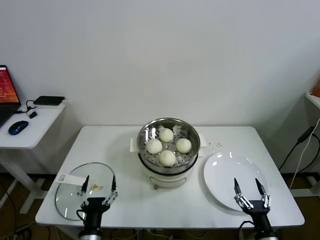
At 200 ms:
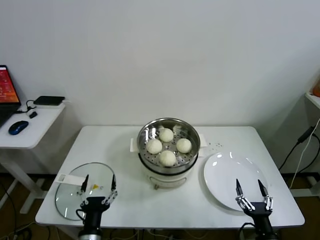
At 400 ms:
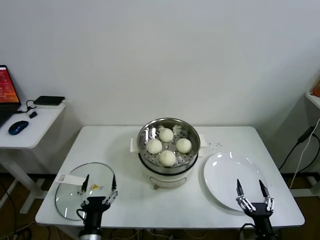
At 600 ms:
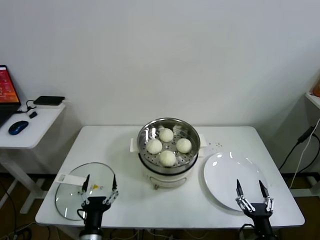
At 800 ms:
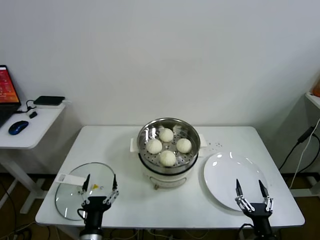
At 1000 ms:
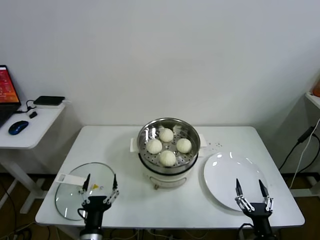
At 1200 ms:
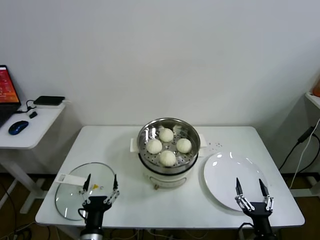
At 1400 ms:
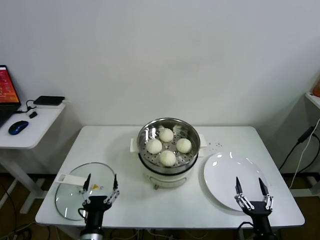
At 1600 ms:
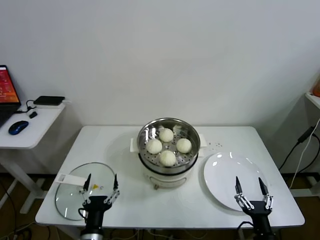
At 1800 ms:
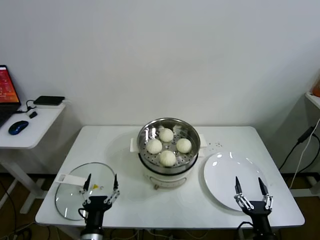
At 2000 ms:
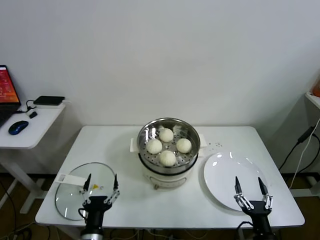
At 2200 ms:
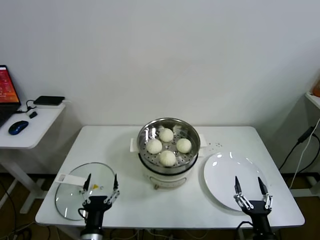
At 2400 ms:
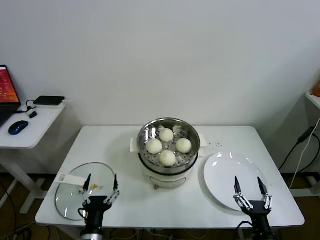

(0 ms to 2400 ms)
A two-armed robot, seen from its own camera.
Task of the whole recording: take steamed baozi put them in steamer.
0 ms - 1200 ms: The grippers stay close to where they were, moving slightly.
1200 ms - 2400 ms: The two grippers keep their place.

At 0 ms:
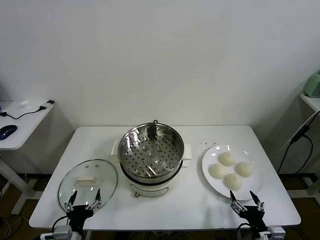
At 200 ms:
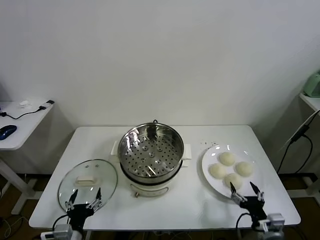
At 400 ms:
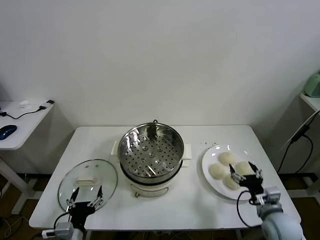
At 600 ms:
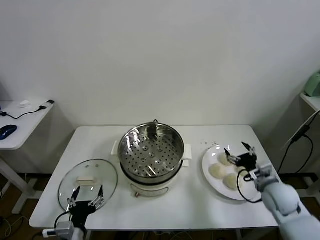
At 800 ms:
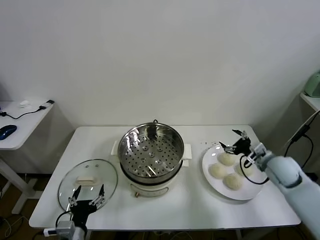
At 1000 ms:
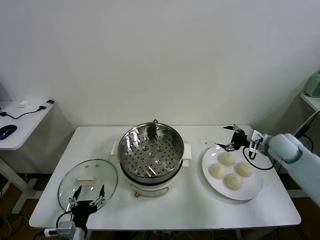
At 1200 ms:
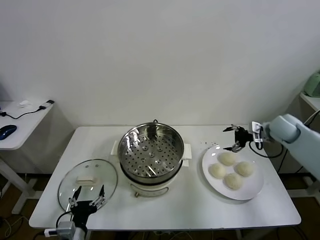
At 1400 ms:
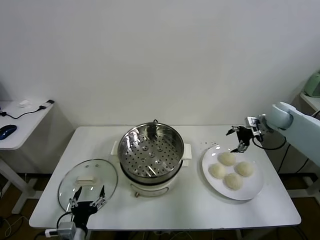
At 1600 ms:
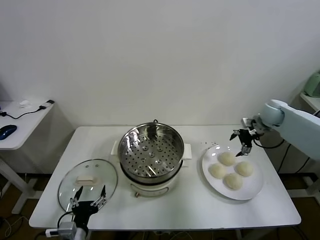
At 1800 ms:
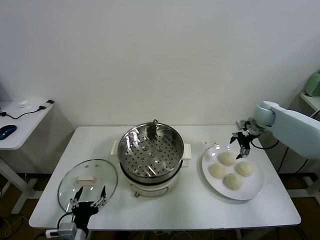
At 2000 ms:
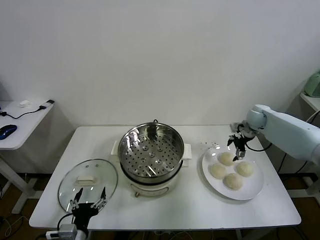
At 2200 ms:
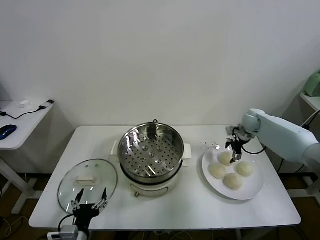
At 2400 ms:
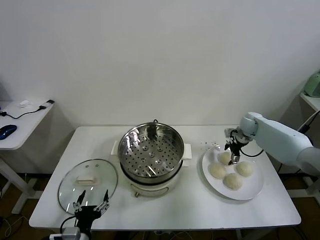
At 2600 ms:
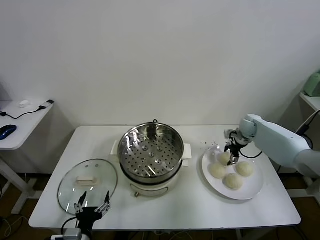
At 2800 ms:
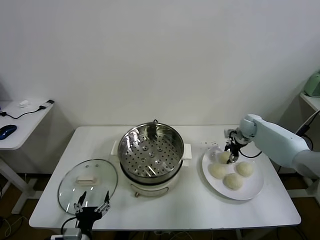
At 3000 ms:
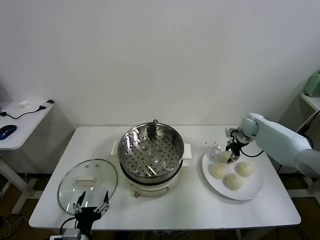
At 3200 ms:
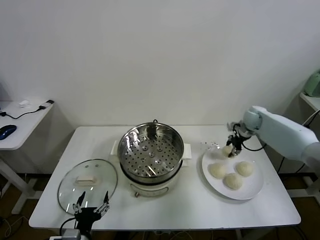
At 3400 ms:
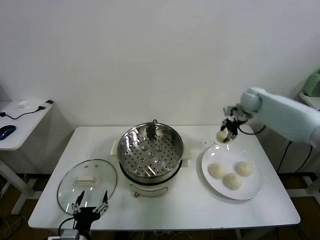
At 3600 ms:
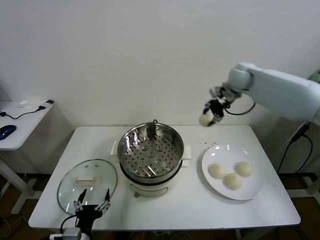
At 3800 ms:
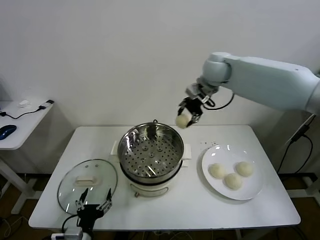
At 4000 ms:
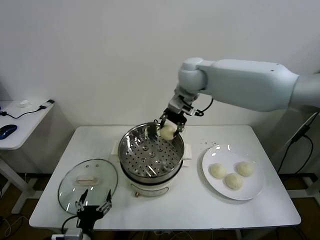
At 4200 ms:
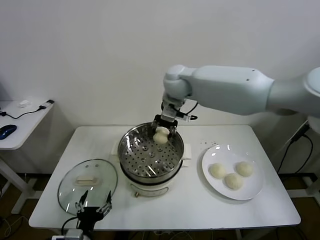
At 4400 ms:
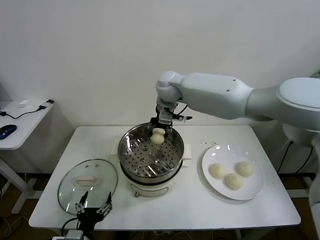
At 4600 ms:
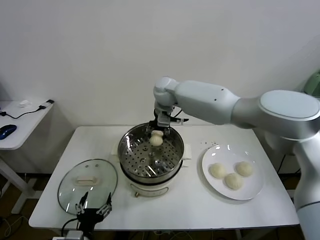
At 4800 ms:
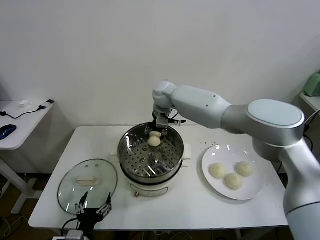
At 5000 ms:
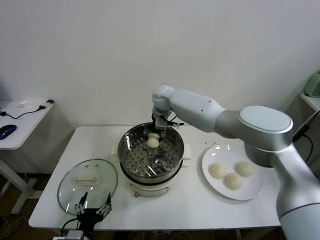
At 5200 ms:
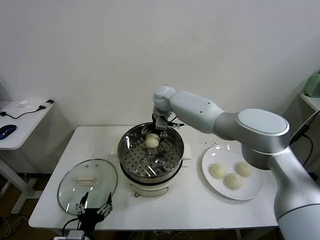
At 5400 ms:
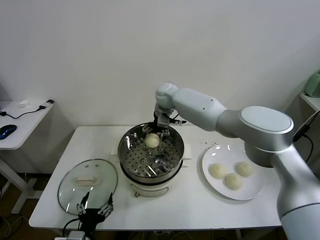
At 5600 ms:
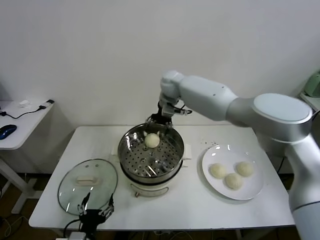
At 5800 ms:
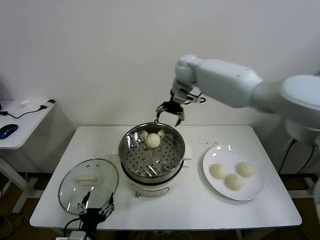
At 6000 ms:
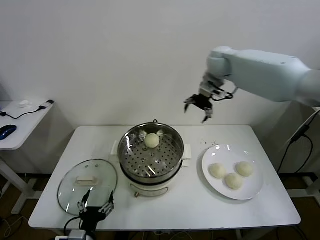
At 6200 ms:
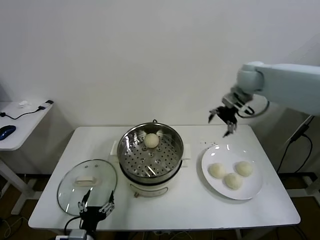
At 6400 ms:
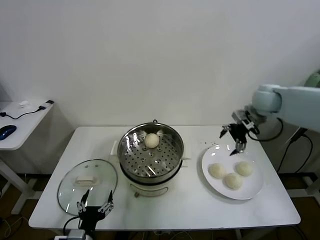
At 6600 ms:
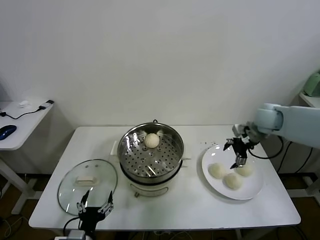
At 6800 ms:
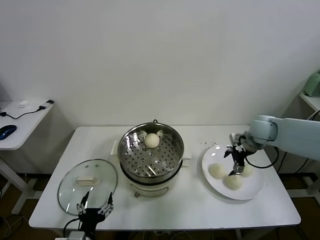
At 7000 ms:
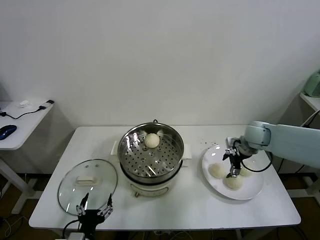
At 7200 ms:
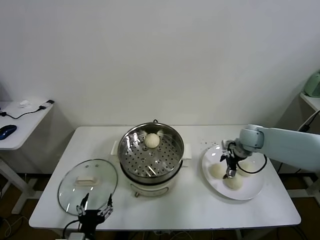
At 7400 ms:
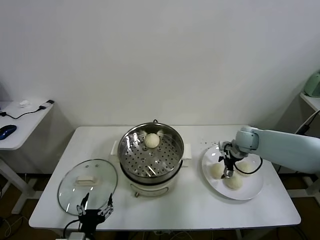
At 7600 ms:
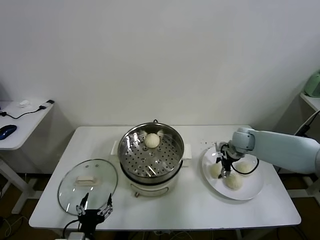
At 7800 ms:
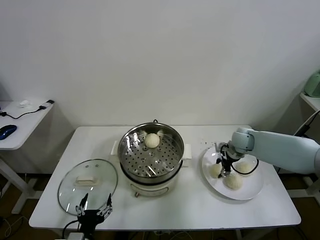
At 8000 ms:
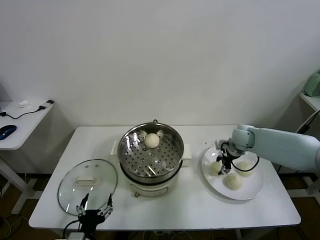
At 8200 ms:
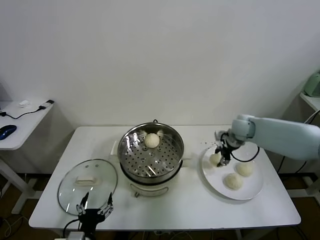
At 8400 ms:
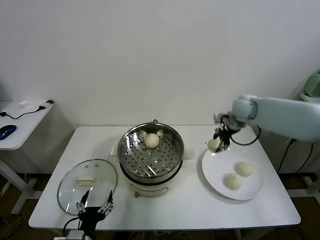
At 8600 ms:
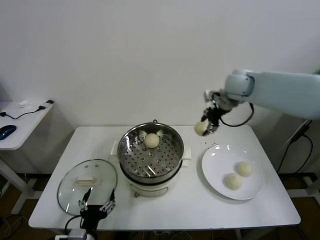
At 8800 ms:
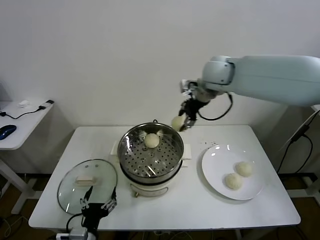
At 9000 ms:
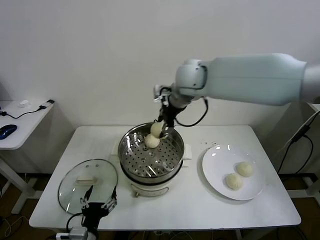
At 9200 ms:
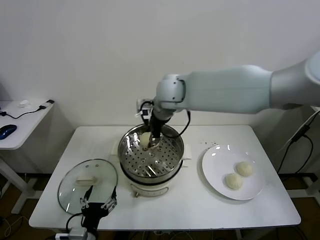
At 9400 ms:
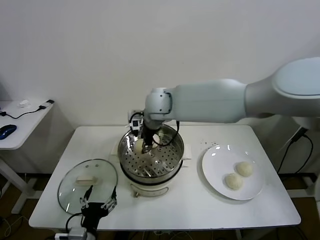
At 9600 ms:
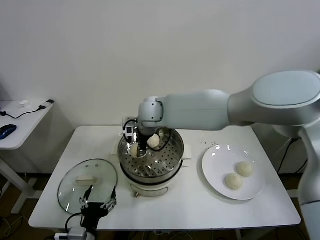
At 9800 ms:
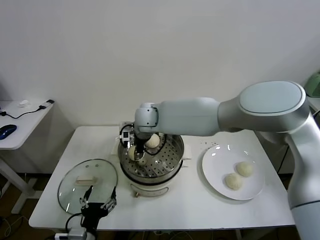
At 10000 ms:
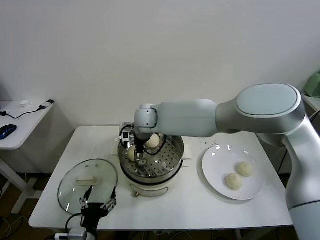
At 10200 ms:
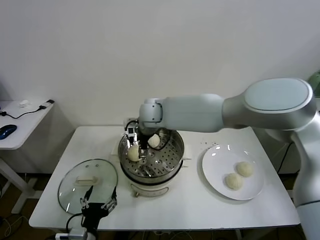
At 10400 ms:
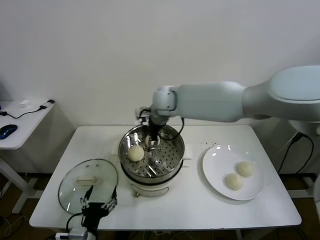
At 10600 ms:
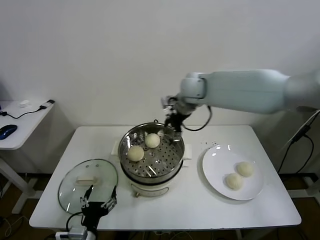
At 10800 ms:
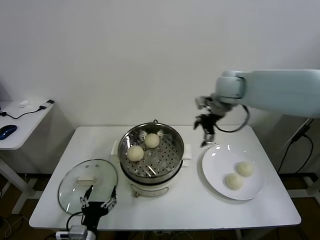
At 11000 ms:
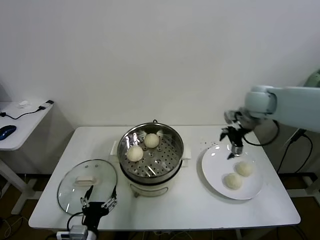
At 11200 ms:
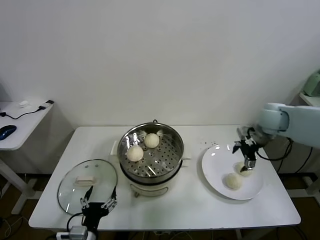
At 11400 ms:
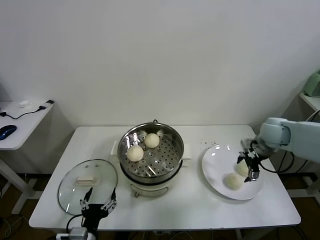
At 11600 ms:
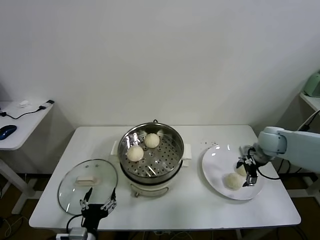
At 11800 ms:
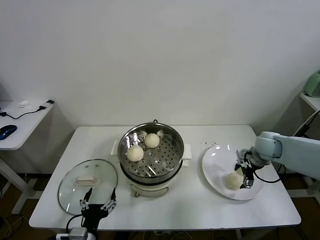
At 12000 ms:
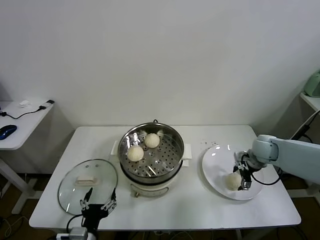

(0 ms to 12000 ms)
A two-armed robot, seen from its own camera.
Task of the whole recording: take steamed baozi put them in steamer.
Step, 0 ms - 2800 ms: Grasp the baozi in the plate with right gripper.
Step, 3000 ms - 5200 ms: Place the baozi on the steamer with right gripper.
Step, 5400 ms - 7600 ms: Grasp the baozi in the plate with right gripper.
Step, 7800 ms - 10000 ms: Place the baozi on the steamer with right gripper.
1600 ms - 3000 ms: The right gripper travels downward by roughly 5 cm, and closes up.
3000 ms - 4400 ms: The right gripper heads to the left and upward, covering about 40 cm.
4400 ms - 6000 ms: The right gripper travels to the right by about 25 cm, and opens up.
6000 ms - 7600 ms: The right gripper is displaced downward by roughly 25 cm.
7600 ms - 9000 ms: The right gripper is displaced upward and to the left by approximately 35 cm, and closes.
9000 ms - 10400 ms: The right gripper goes about 5 cm downward, and opens its fingers.
10400 ms - 12000 ms: The right gripper shifts about 40 cm to the right and downward.

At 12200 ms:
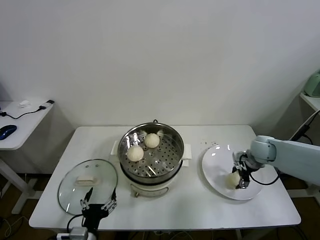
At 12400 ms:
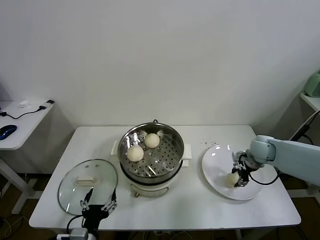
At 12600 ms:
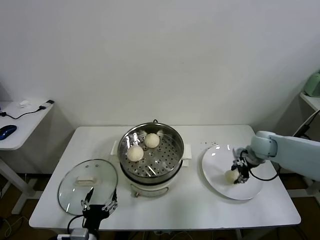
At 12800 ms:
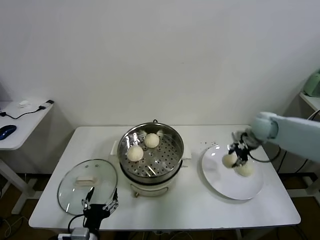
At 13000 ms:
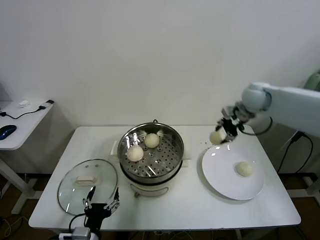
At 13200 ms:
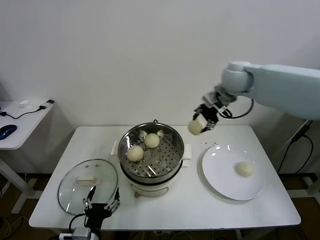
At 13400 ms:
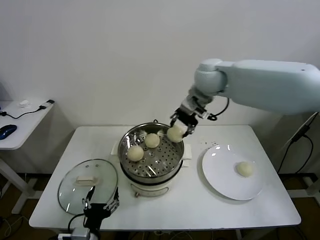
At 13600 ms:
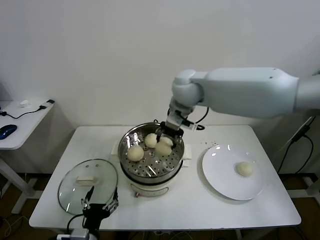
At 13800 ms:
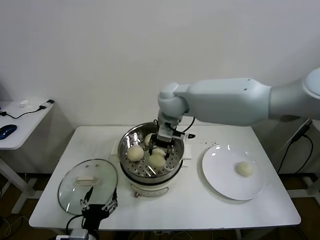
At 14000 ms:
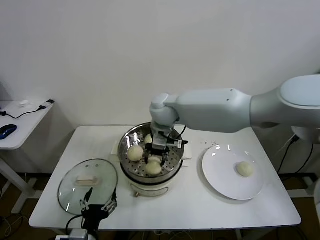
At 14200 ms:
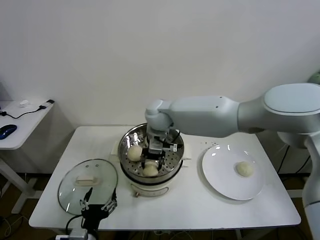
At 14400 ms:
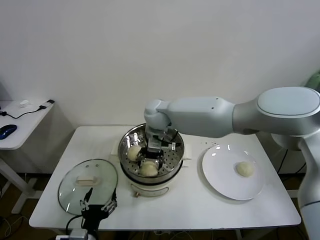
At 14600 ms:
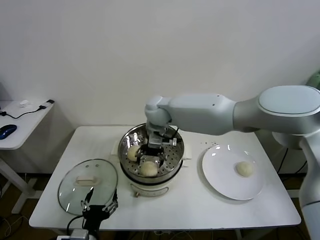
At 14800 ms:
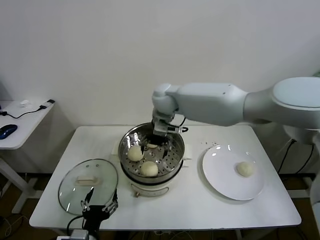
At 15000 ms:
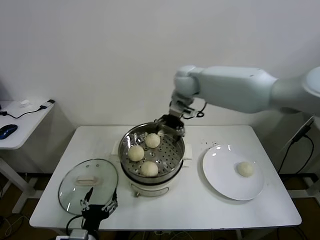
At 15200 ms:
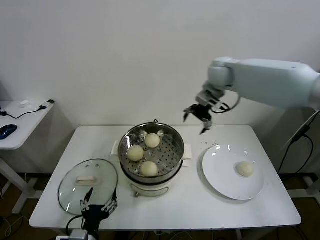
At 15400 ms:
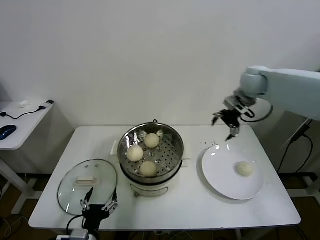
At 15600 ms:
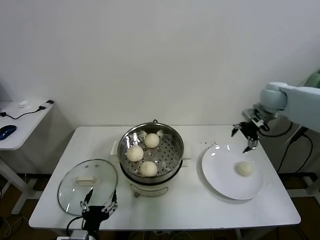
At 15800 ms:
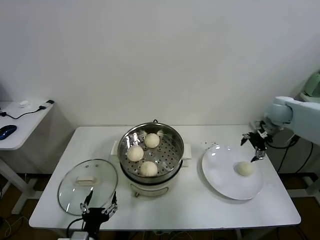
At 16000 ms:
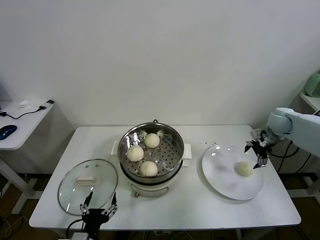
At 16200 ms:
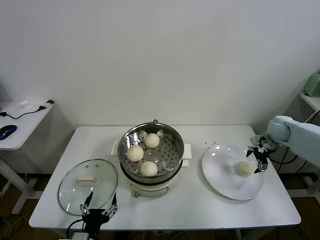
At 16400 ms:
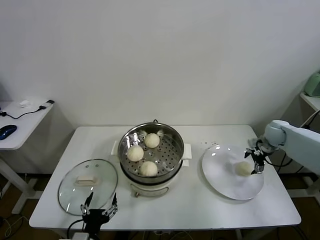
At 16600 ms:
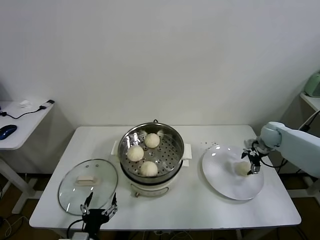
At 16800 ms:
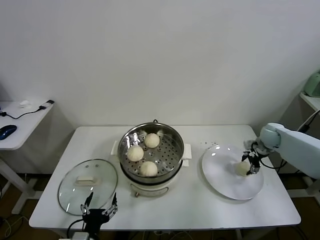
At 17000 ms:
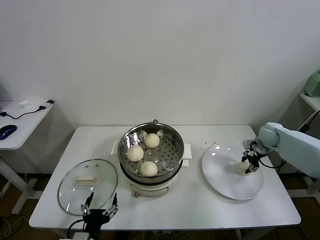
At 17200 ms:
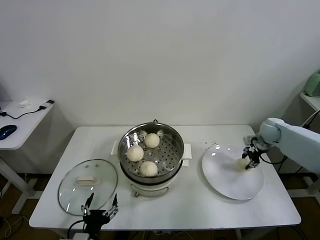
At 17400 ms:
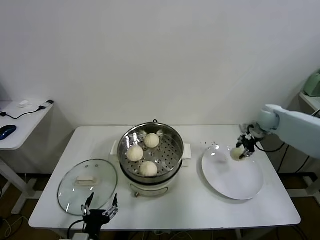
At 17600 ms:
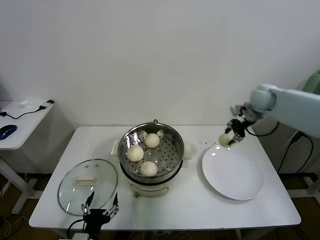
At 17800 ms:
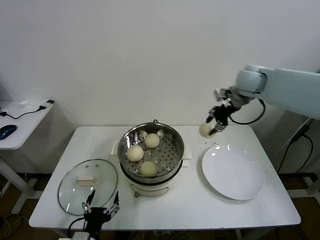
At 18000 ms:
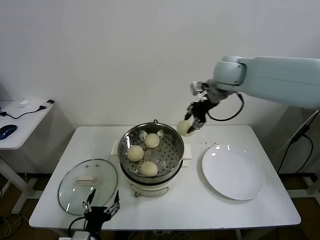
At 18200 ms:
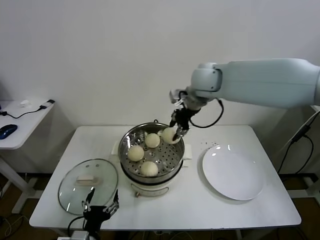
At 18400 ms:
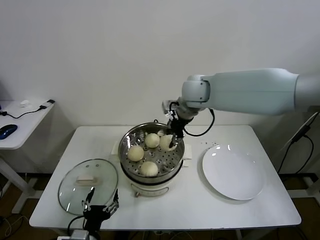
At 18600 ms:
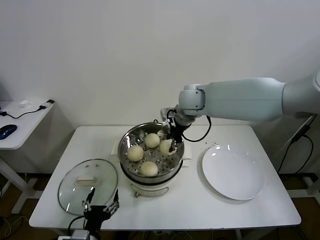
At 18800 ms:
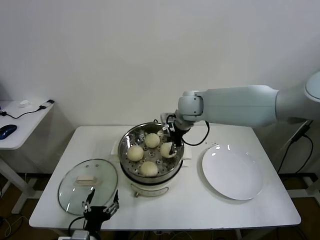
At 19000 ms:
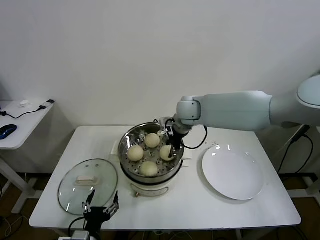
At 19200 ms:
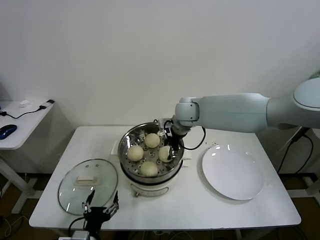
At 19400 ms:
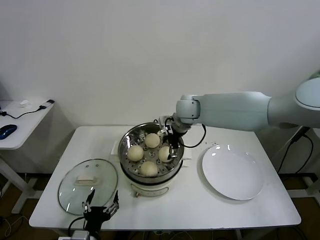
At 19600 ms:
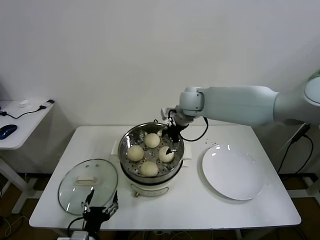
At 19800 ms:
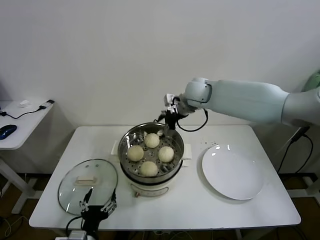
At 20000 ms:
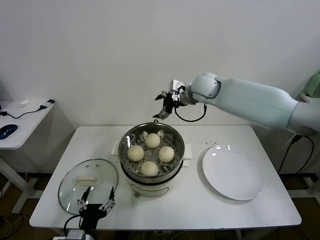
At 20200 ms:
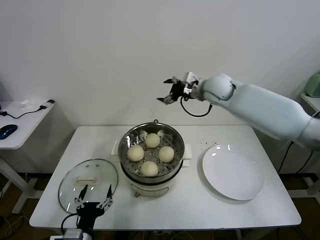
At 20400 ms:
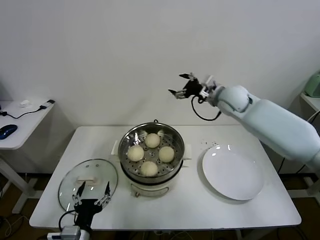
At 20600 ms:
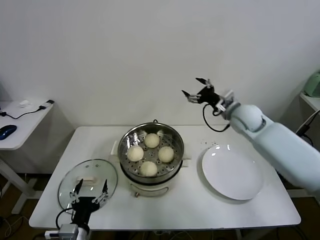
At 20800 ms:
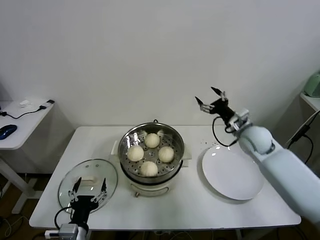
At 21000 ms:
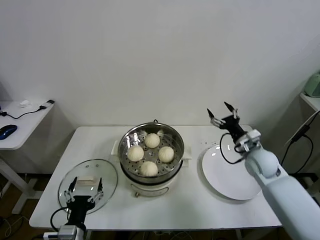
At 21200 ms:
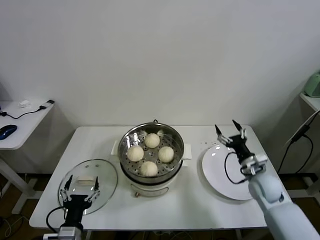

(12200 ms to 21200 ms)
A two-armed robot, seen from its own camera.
Task of the whole recording: take steamed baozi put them in steamer.
Step, 12400 ms - 14400 ms: Place the baozi on the steamer with right gripper.
Step, 14600 ms - 17000 ms: Grasp the baozi in the plate with right gripper.
Step, 17200 ms - 19200 ms: Place the baozi on the steamer with right gripper.
12200 ms - 13800 ms: The right gripper goes approximately 40 cm to the left and upward, and closes its fingers.
13800 ms - 15200 ms: The right gripper goes about 20 cm to the right and forward, and opens its fingers.
15200 ms - 16600 ms: The right gripper shifts some 35 cm downward and to the right.
16600 ms - 18200 ms: The right gripper travels to the left and upward by approximately 40 cm, and closes up.
18200 ms - 19800 ms: The right gripper heads downward, covering some 5 cm, and opens.
19800 ms - 21200 ms: The right gripper shifts some 40 cm downward, to the right and backward.
